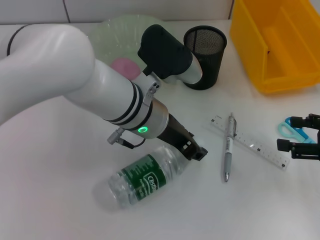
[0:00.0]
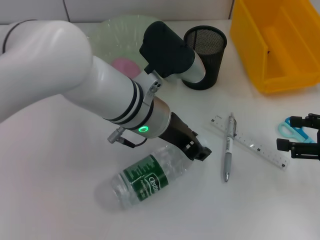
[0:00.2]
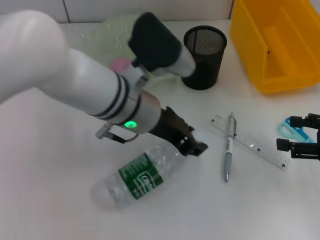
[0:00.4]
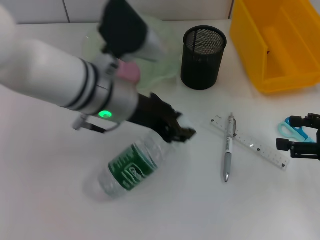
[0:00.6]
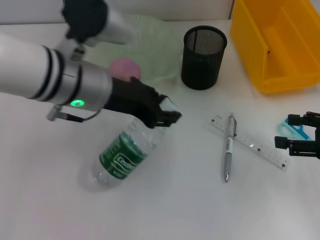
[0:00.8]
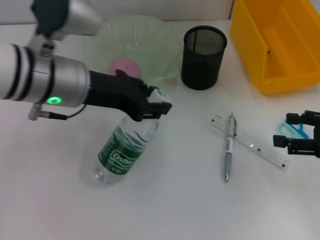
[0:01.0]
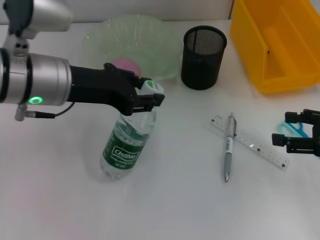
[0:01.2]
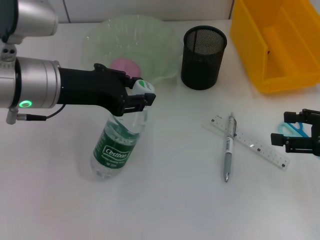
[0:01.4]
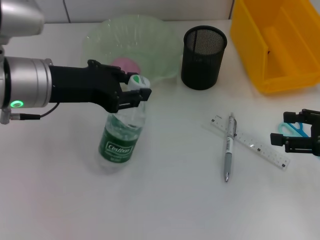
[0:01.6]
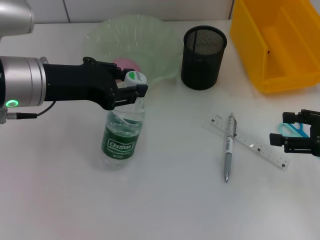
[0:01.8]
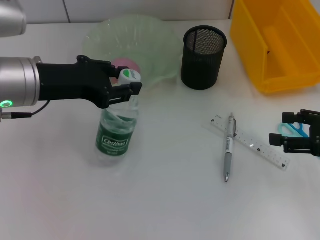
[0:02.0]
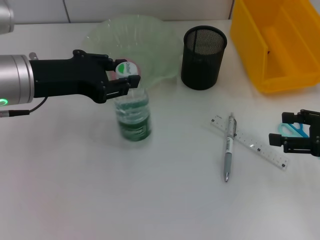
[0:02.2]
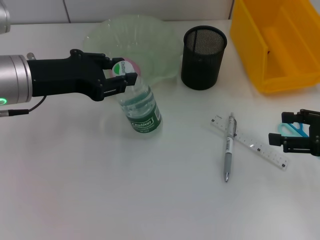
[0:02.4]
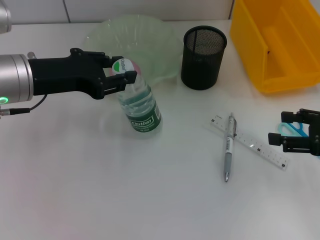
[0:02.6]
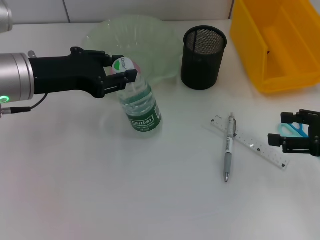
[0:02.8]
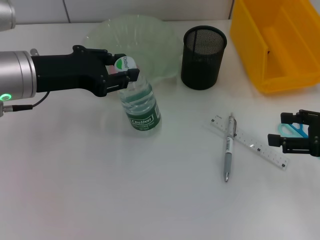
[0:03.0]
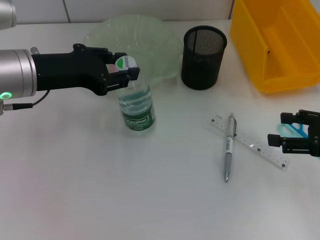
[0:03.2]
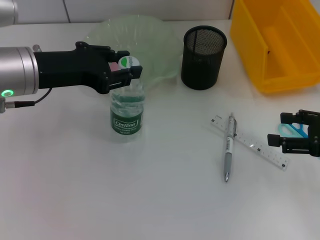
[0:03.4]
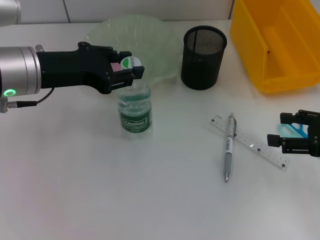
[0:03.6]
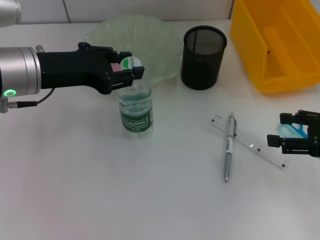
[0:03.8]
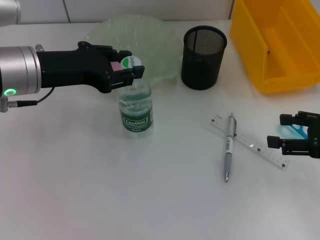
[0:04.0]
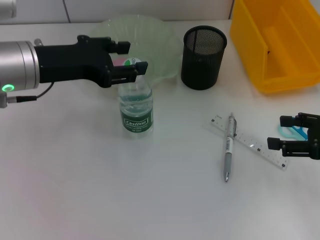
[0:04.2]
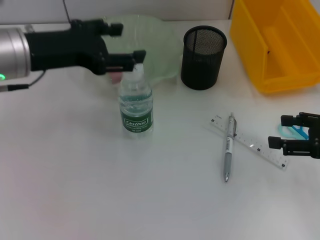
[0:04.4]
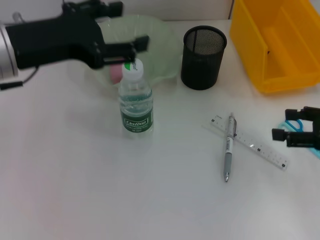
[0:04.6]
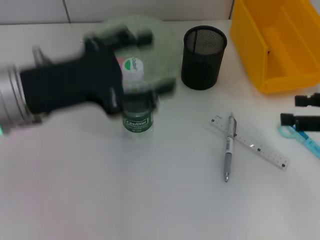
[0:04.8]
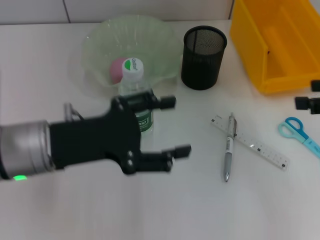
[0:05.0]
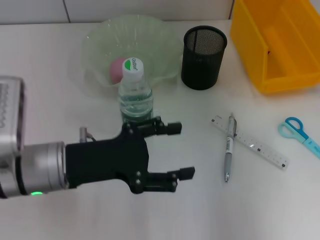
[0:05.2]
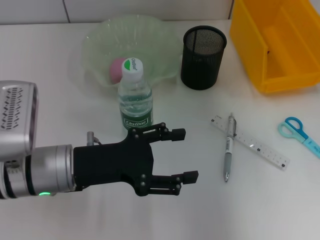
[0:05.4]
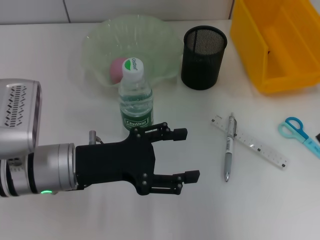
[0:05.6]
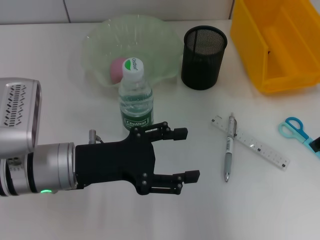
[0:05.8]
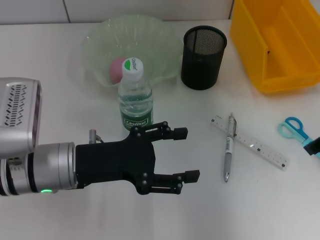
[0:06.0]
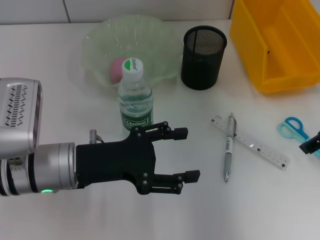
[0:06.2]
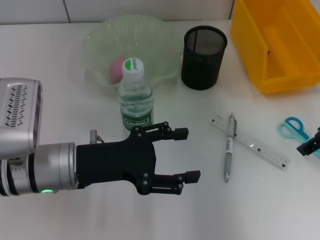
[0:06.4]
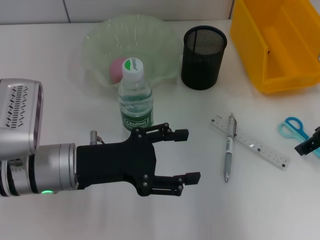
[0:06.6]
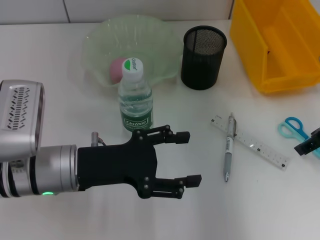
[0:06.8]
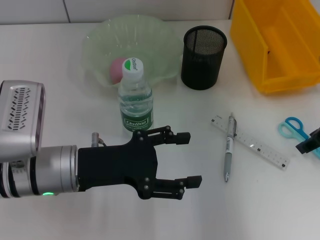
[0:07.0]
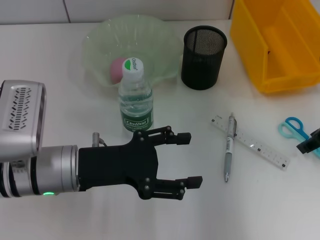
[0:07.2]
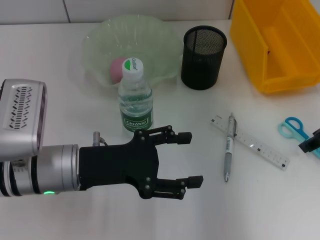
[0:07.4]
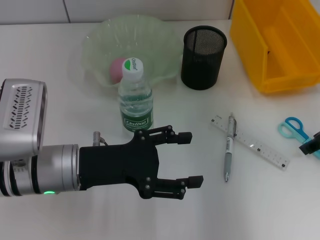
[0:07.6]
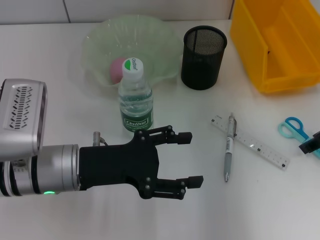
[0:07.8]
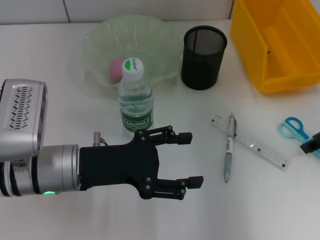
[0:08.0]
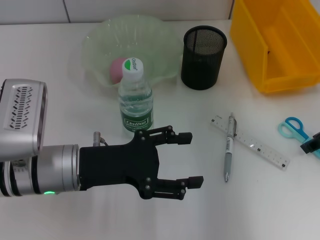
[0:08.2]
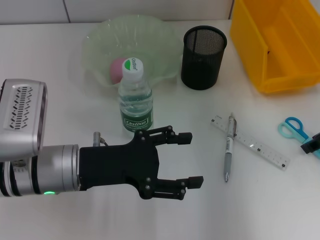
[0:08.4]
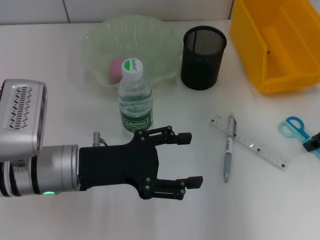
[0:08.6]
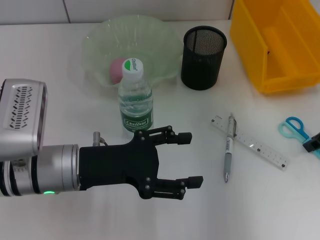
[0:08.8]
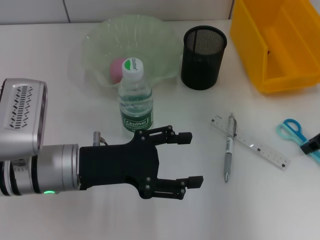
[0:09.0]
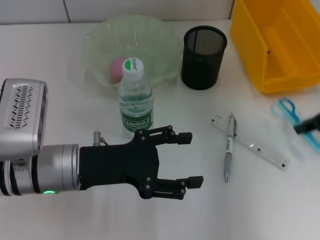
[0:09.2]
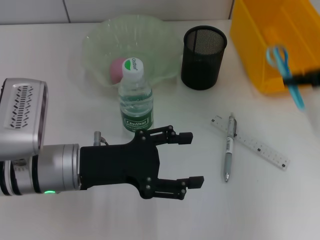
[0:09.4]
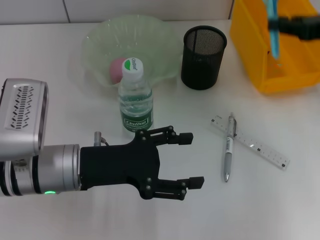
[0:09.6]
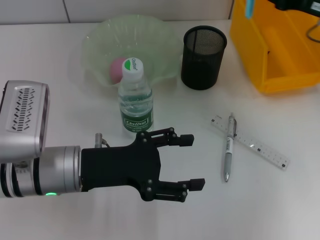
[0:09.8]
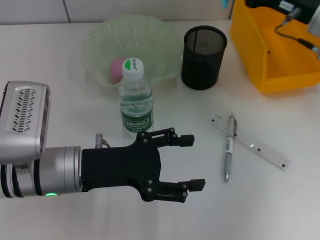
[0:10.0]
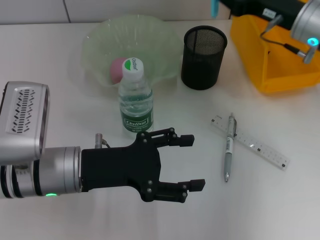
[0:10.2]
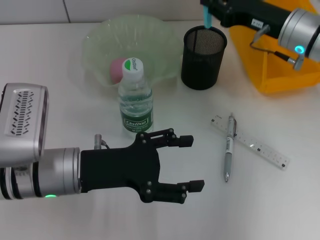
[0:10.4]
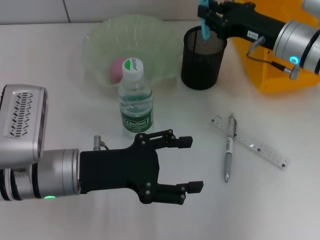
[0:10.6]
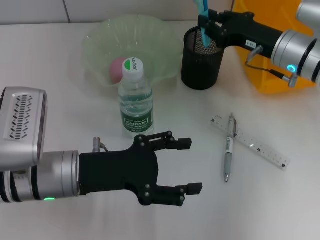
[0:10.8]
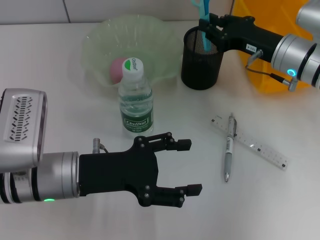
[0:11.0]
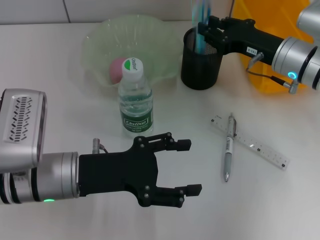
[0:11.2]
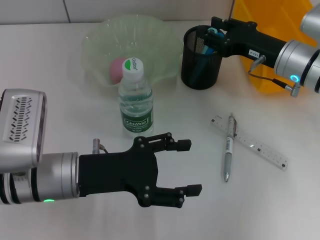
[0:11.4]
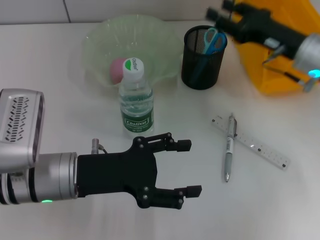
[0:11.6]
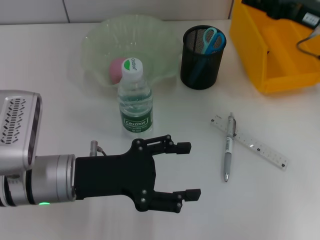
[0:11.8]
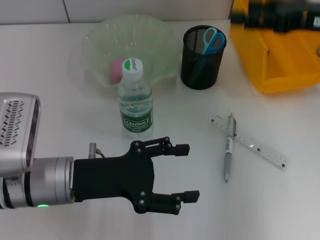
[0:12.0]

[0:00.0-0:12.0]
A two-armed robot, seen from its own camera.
Step, 0:00.0 to 0:04.0: Place the water bottle on the table with the left hand.
Step, 0:04.2 to 0:08.8: Grab the blue scissors with the right hand.
Step, 0:09.0 to 0:11.2: Place the blue scissors into the pen holder with the right hand.
0:00.0 to 0:01.6: The left gripper goes roughly 15 cm to the left and upward.
0:01.6 to 0:03.0: The grippers make only small movements.
0:03.0 to 0:04.4: The left gripper opens.
0:04.4 to 0:06.0: The right gripper goes some 10 cm upward, forward and to the left. The left gripper travels downward and backward by approximately 15 cm.
0:06.0 to 0:07.6: The grippers move only a little.
0:09.0 to 0:10.4: The right gripper is displaced to the left and forward by some 10 cm.
0:10.4 to 0:12.0: The right gripper goes approximately 10 cm upward and to the right, and opens its fingers.

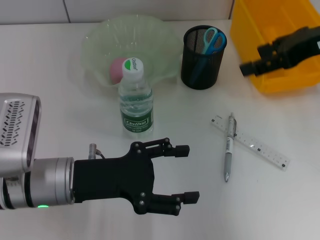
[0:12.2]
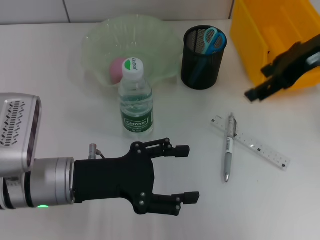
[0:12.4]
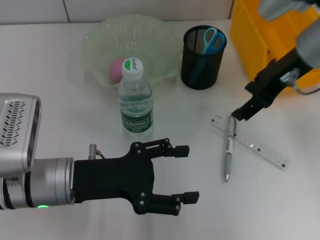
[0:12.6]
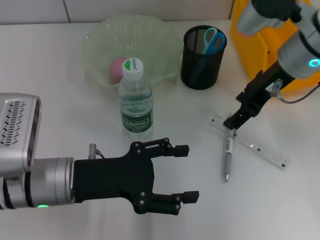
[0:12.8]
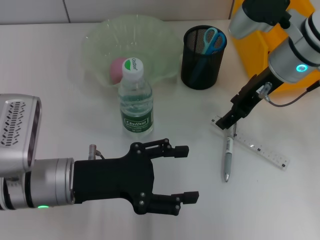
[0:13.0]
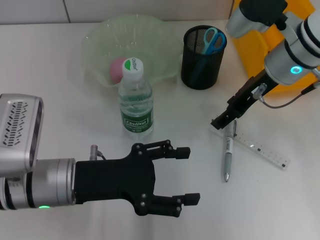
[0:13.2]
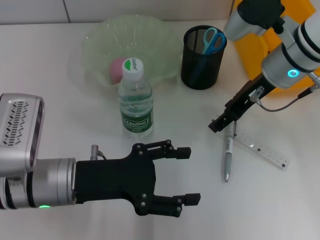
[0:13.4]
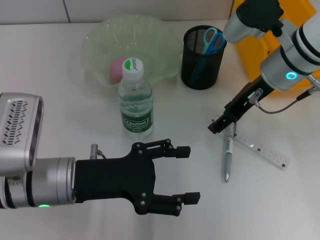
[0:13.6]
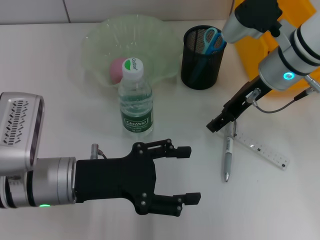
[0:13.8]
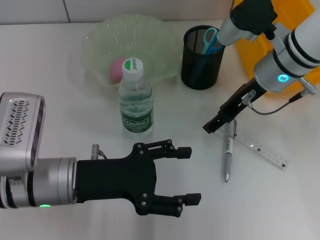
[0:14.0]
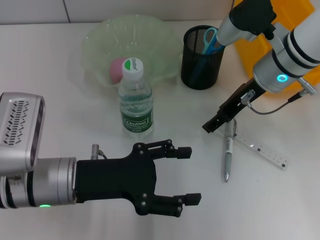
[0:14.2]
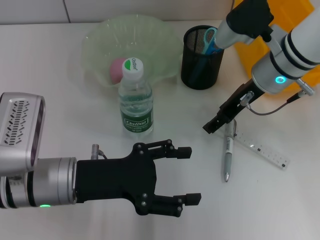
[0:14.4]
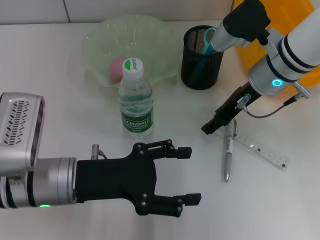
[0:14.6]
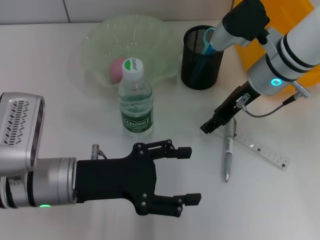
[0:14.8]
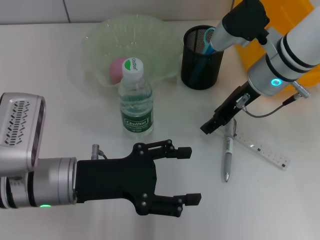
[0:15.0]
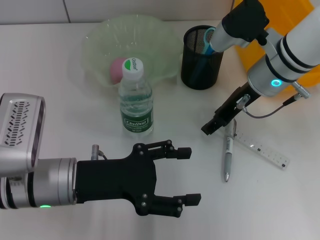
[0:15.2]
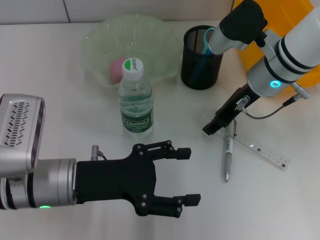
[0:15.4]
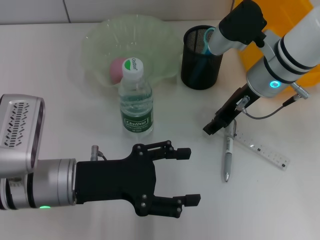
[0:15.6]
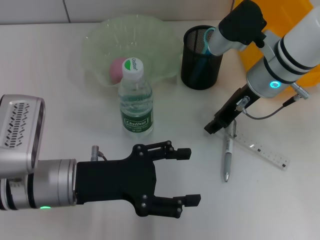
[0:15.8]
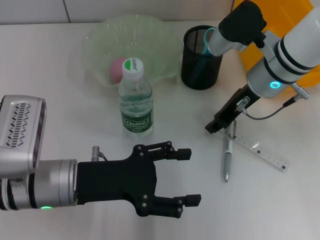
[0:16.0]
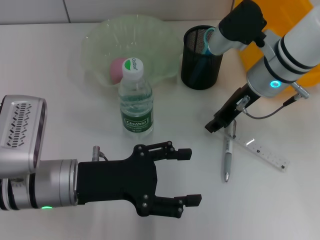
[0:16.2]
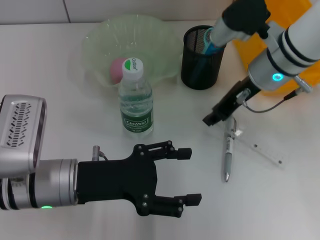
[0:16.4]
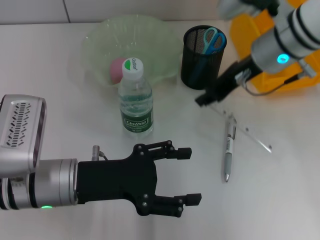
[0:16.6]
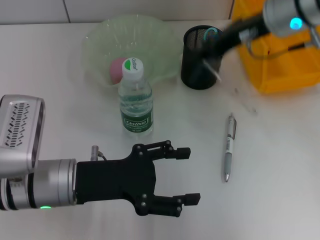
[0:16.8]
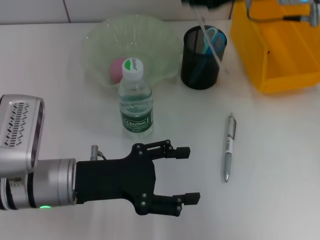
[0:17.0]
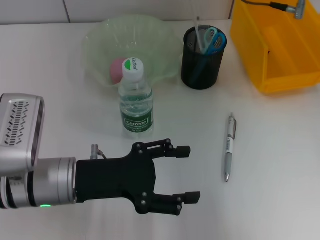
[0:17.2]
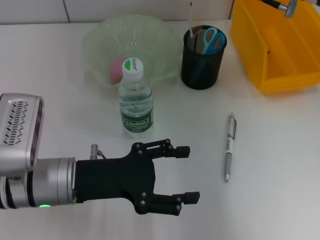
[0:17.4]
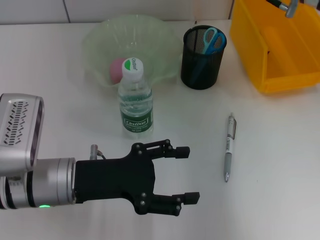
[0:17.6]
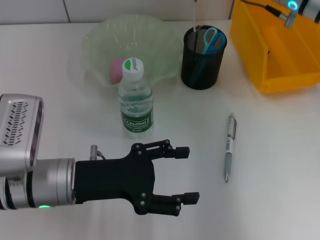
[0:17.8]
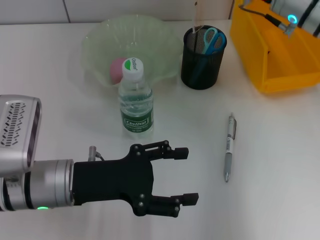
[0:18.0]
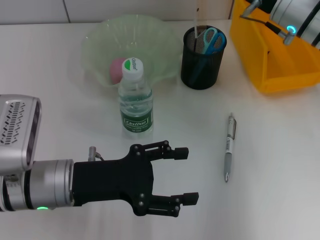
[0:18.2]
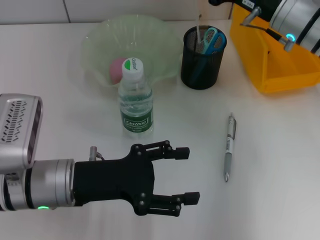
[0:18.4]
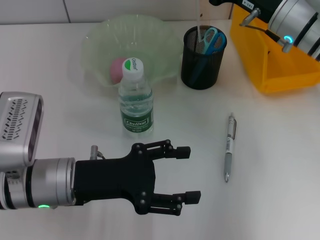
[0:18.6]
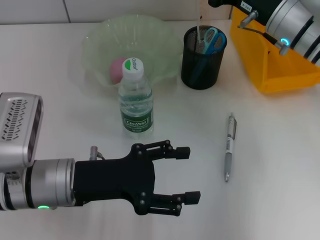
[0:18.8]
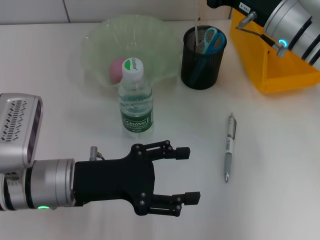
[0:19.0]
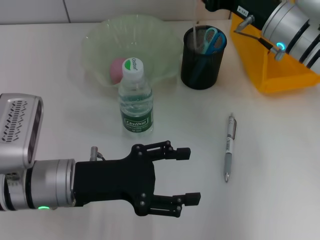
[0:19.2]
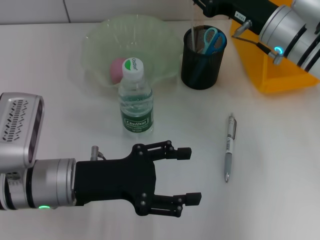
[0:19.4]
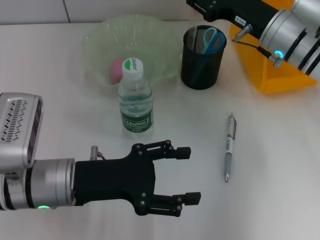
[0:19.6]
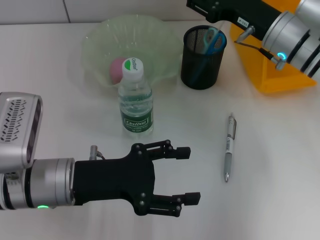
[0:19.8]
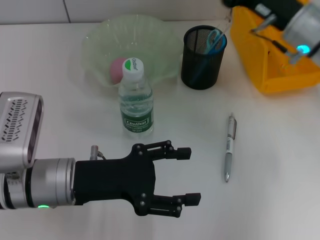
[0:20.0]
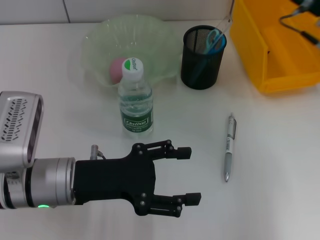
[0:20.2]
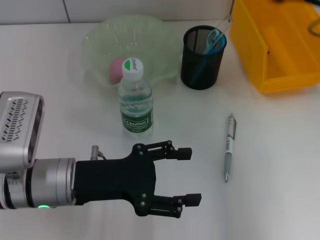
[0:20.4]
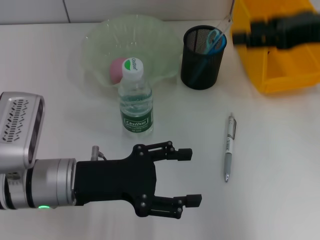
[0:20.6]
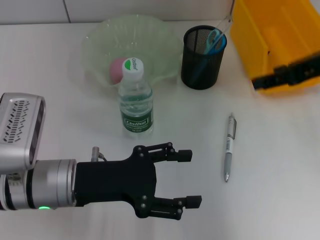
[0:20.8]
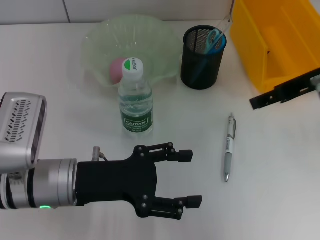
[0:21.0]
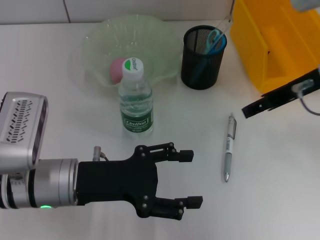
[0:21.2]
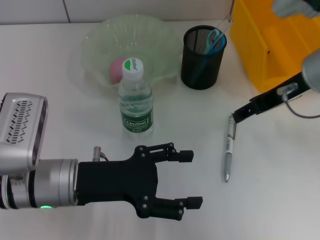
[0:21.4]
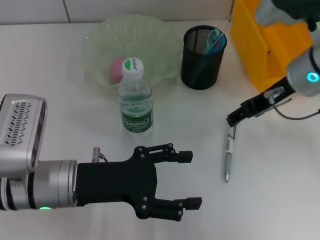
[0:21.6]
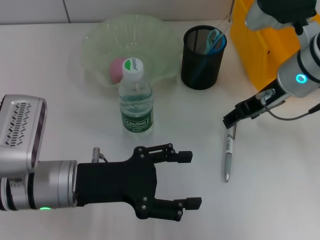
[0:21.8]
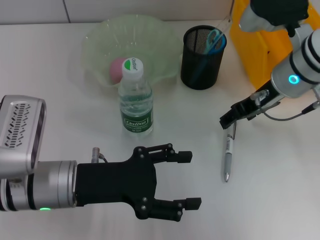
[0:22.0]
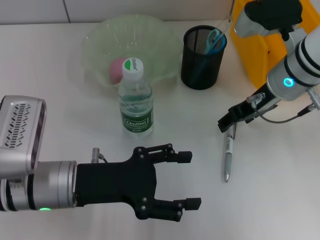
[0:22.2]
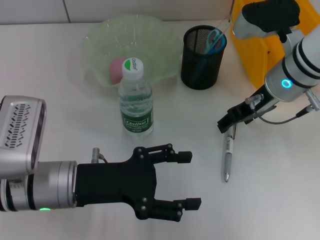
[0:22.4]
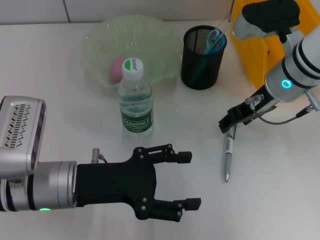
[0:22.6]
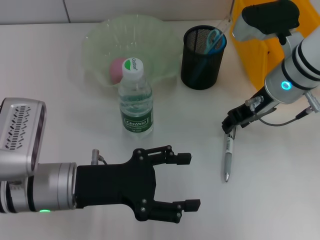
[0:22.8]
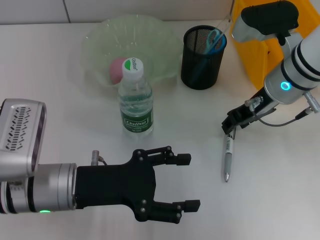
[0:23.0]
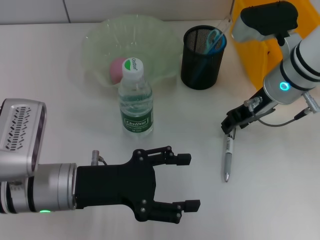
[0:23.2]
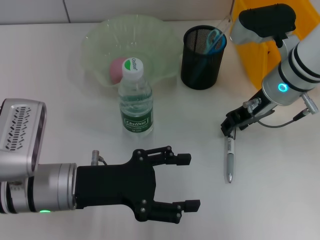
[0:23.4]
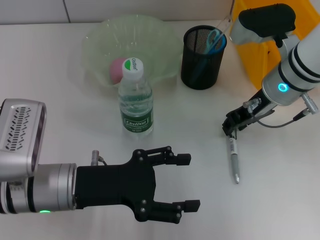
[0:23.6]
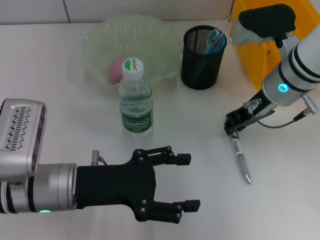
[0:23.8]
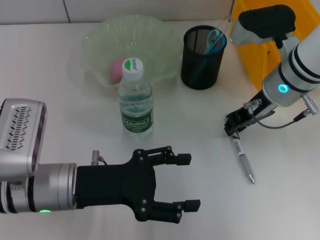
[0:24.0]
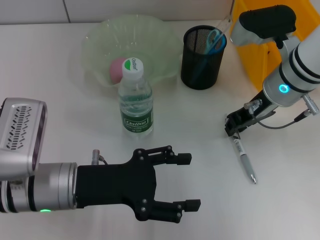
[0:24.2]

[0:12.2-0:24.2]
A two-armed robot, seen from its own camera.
Step, 0:12.2 to 0:16.0: Grab the ruler with the right hand.
Step, 0:16.2 to 0:19.8: Place the ruler into the pen holder with the right hand.
0:12.2 to 0:13.8: The right gripper travels downward and to the left by approximately 15 cm.
0:13.8 to 0:15.2: The grippers make only small movements.
0:15.2 to 0:16.6: The right gripper closes up.
0:18.2 to 0:19.8: There are only small adjustments of the grippers.
0:19.8 to 0:21.2: The right gripper goes some 10 cm upward and backward.
0:21.2 to 0:22.6: The right gripper heads downward, covering roughly 5 cm.
0:22.6 to 0:24.2: The right gripper closes its fingers.
